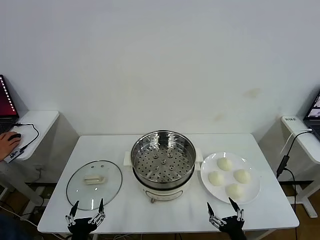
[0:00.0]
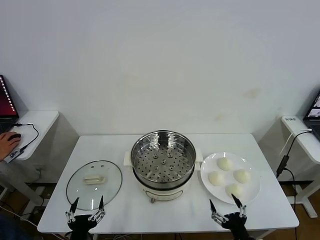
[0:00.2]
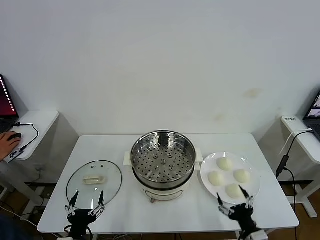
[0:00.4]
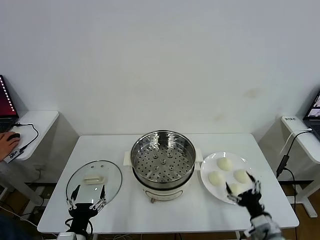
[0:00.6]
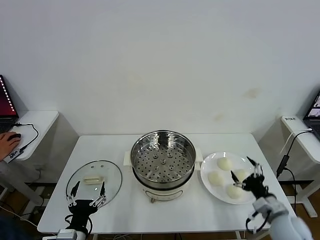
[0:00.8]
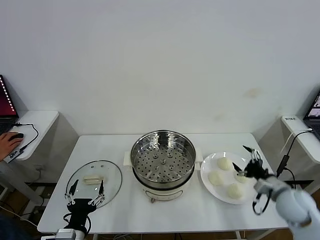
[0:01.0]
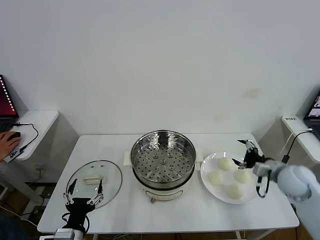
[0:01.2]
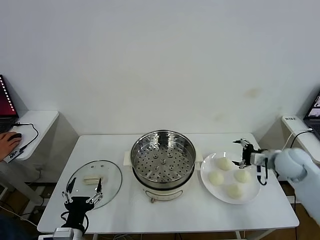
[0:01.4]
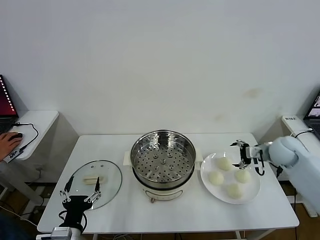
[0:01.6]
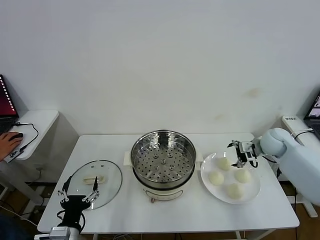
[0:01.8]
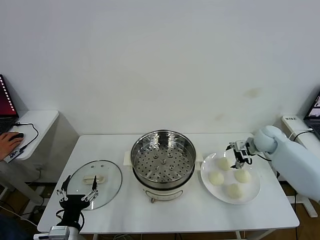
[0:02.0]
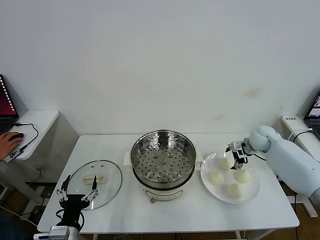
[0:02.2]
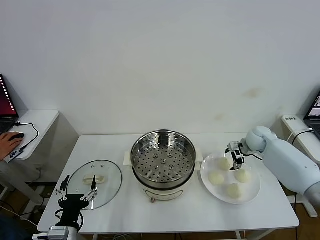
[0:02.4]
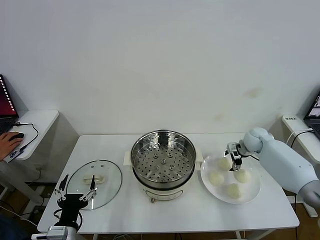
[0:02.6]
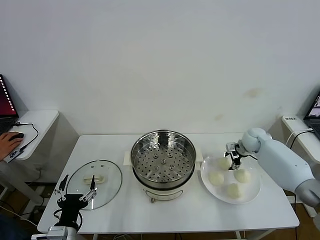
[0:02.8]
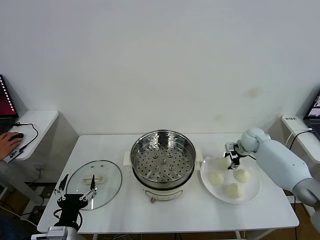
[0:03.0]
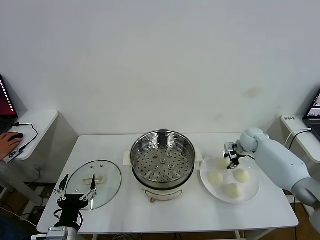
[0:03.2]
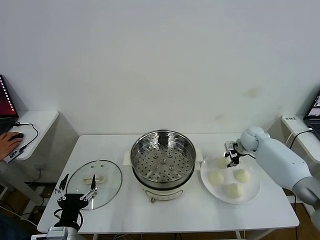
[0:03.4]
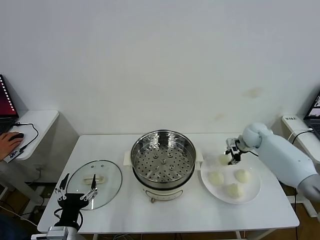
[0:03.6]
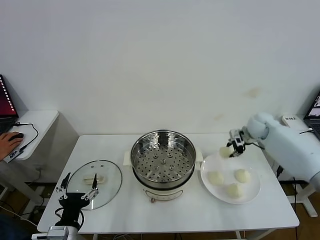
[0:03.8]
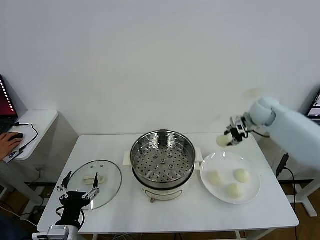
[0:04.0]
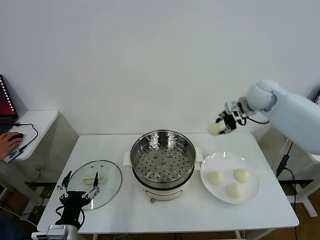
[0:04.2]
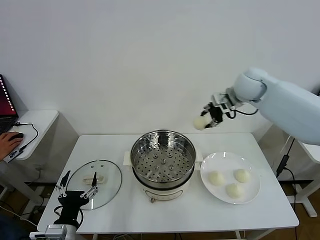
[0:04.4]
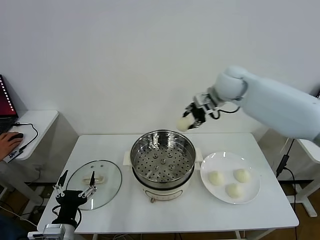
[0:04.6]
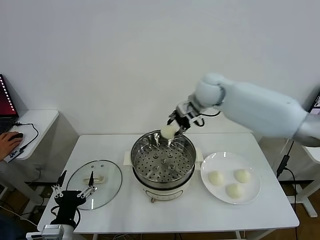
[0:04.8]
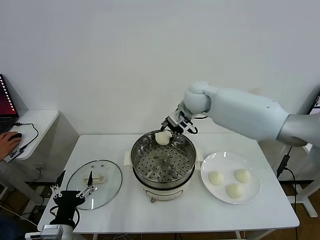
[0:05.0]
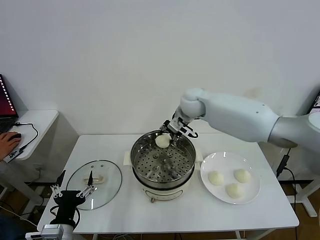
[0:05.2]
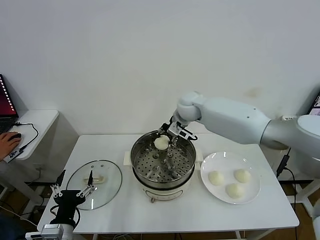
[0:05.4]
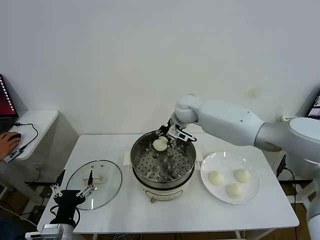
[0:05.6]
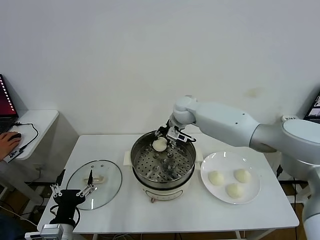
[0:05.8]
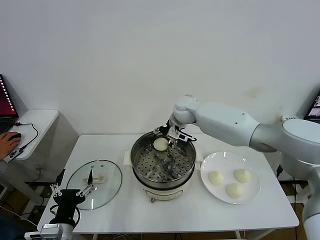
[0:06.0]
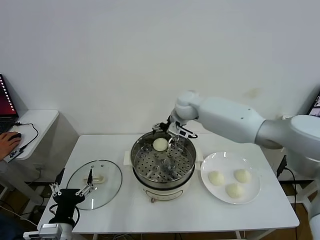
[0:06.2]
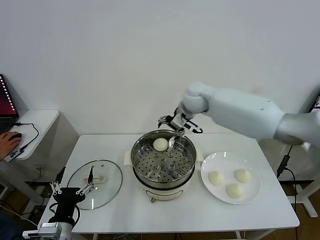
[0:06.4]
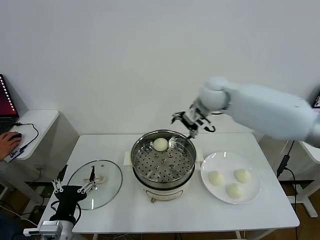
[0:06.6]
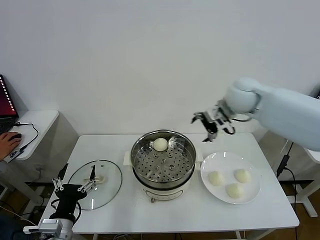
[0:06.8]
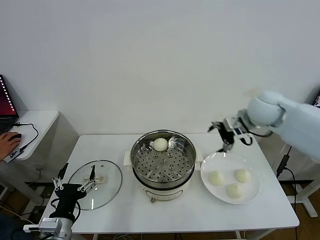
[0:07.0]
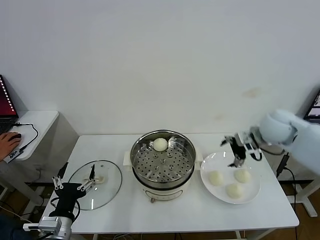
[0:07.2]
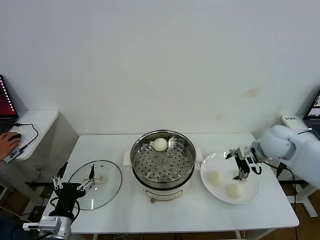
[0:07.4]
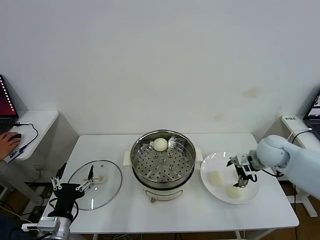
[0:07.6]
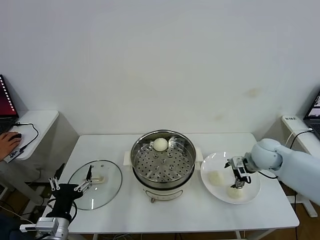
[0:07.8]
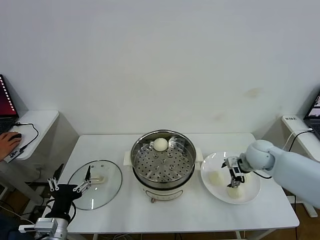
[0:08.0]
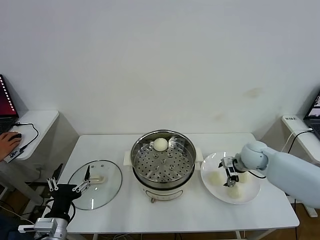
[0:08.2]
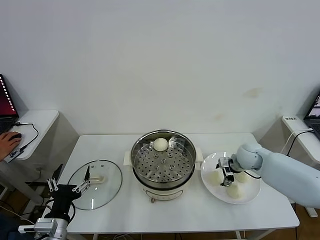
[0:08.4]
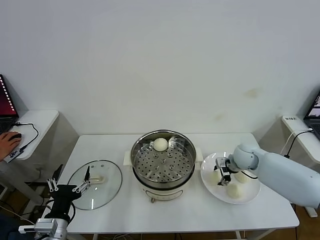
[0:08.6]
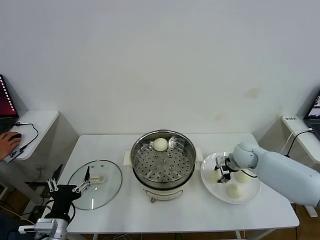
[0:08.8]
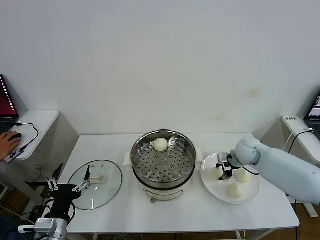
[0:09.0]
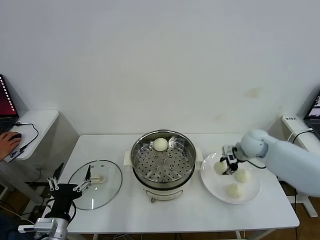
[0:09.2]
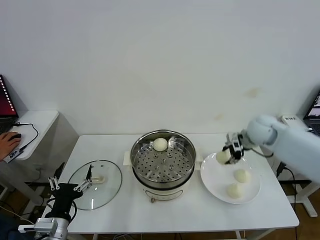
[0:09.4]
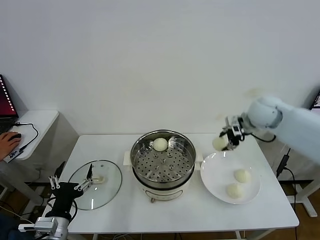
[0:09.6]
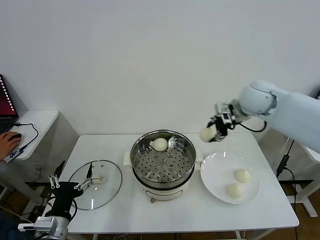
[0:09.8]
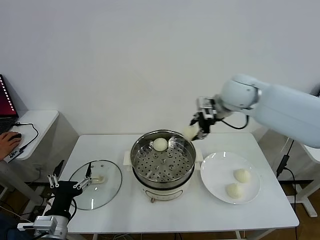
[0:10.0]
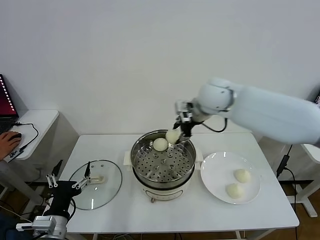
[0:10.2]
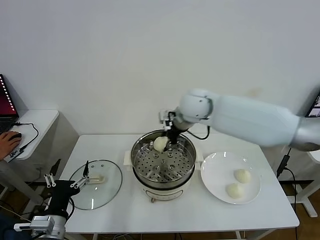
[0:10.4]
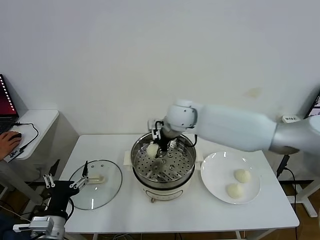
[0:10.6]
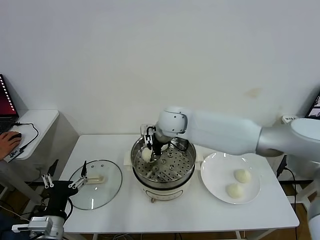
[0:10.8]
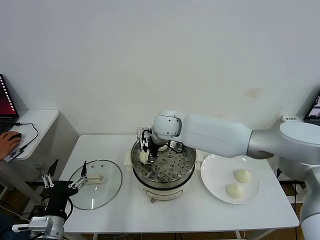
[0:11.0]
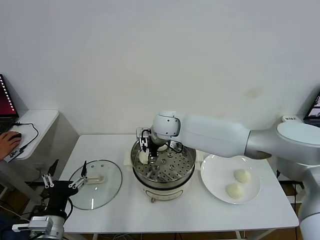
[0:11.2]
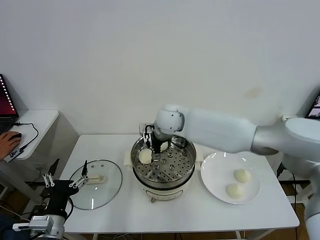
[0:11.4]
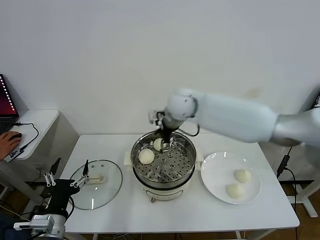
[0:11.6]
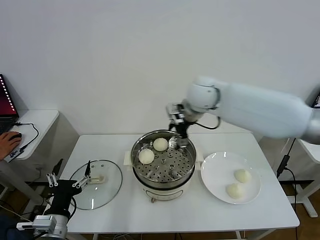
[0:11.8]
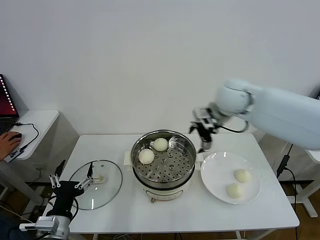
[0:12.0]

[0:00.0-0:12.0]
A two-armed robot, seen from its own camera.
Task of the whole recording: take steamed baozi put them in steamer then cover it.
Step, 0:00.0 to 0:02.8: Grasp the baozi in the plate with right gripper.
Step, 0:03.0 to 0:05.8: Place the baozi on the steamer with right gripper.
Step, 0:06.0 to 0:08.8: Grasp the baozi in the plate with right gripper.
Step, 0:09.0 to 0:11.2: Place the baozi on the steamer with right gripper.
0:01.6 to 0:03.0: The right gripper moves forward and downward, roughly 10 cm, and closes up.
0:03.0 to 0:04.4: The right gripper heads upward and to the left, covering about 30 cm.
0:04.4 to 0:06.0: The right gripper is displaced to the left and downward by approximately 20 cm, and opens.
0:06.0 to 0:07.6: The right gripper heads to the right and backward, covering some 30 cm.
0:07.6 to 0:09.0: The right gripper shifts some 5 cm forward, and closes up.
0:09.0 to 0:10.4: The right gripper travels to the left and upward by some 30 cm.
0:10.4 to 0:12.0: The right gripper heads to the right, covering some 15 cm, and opens its fingers.

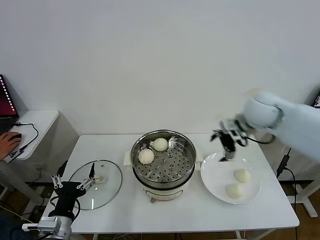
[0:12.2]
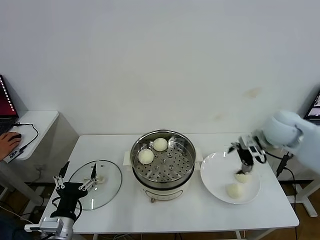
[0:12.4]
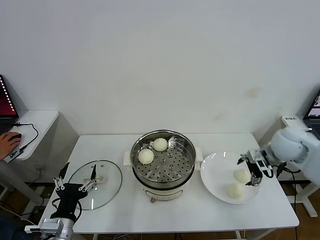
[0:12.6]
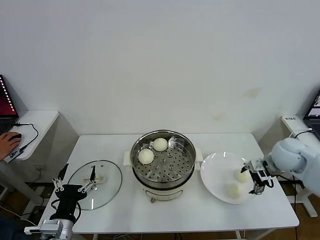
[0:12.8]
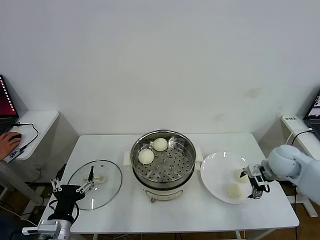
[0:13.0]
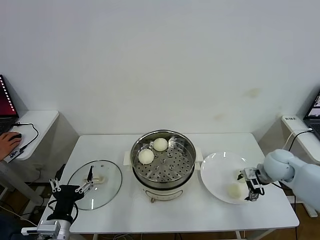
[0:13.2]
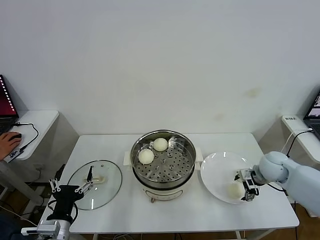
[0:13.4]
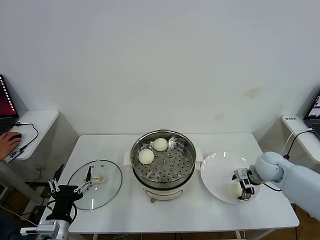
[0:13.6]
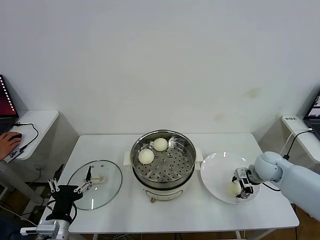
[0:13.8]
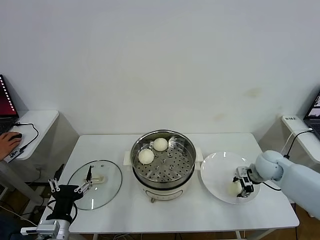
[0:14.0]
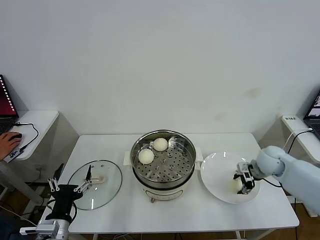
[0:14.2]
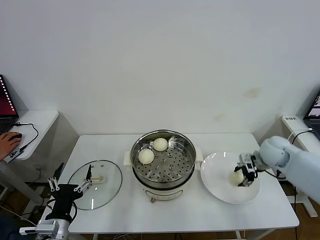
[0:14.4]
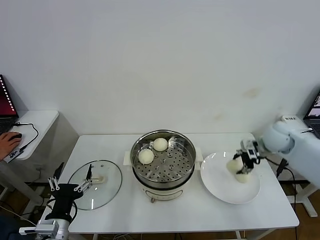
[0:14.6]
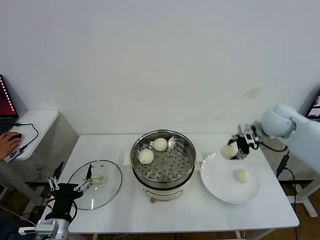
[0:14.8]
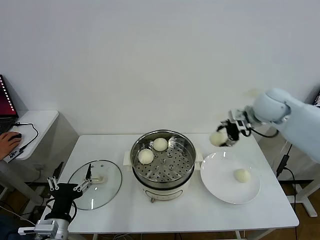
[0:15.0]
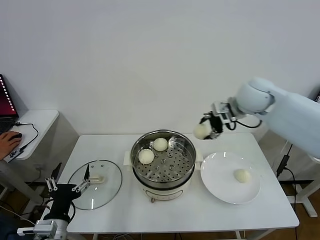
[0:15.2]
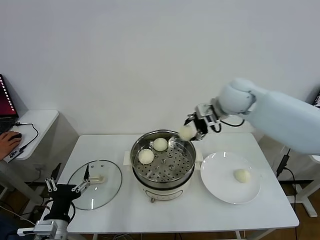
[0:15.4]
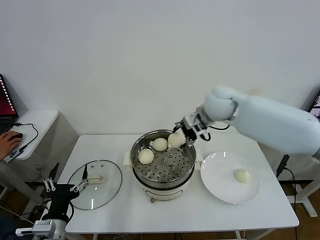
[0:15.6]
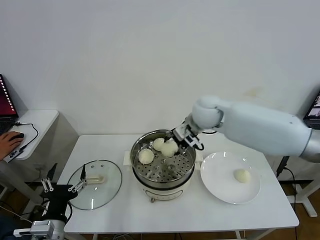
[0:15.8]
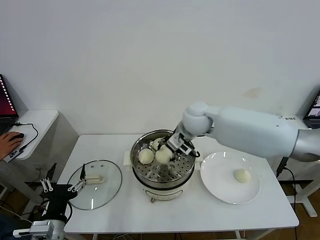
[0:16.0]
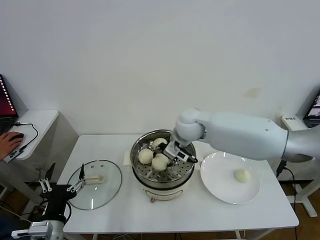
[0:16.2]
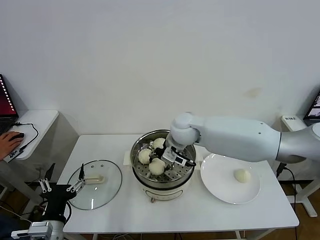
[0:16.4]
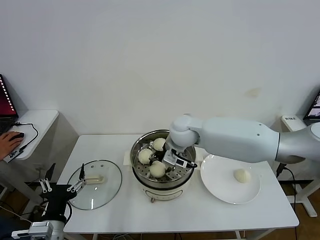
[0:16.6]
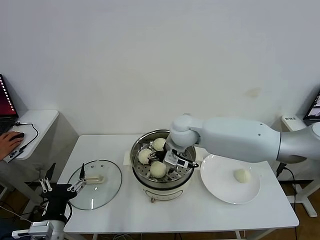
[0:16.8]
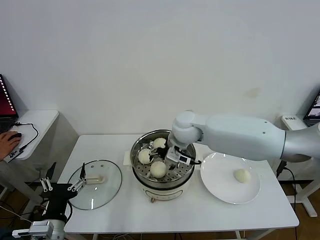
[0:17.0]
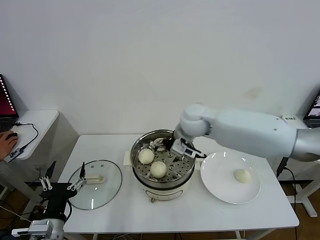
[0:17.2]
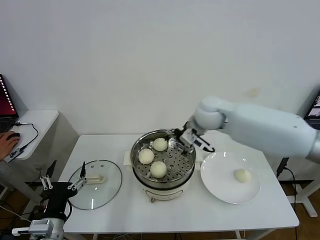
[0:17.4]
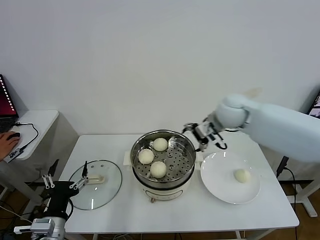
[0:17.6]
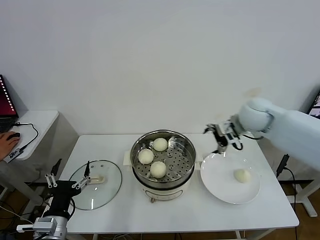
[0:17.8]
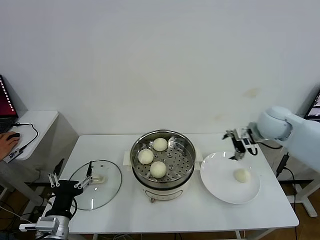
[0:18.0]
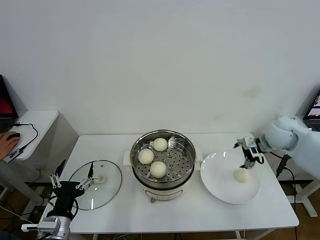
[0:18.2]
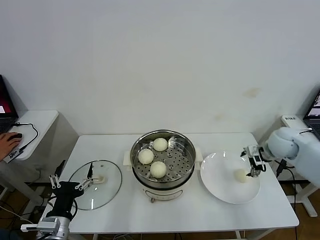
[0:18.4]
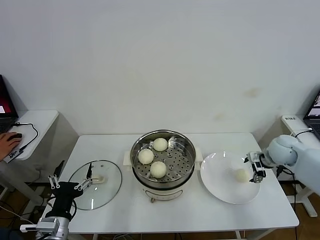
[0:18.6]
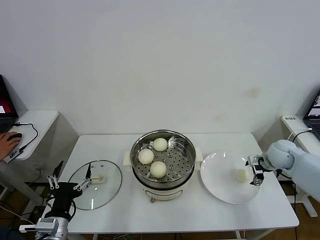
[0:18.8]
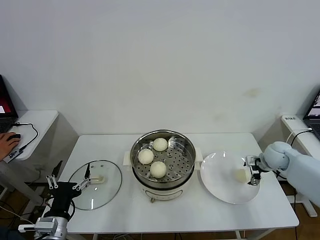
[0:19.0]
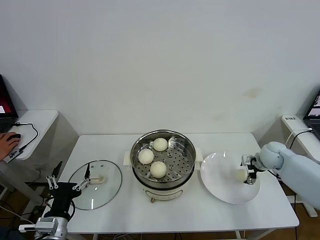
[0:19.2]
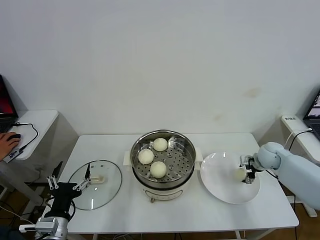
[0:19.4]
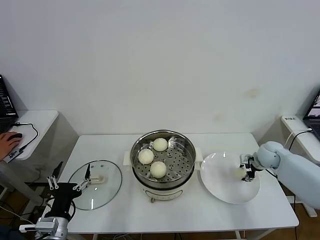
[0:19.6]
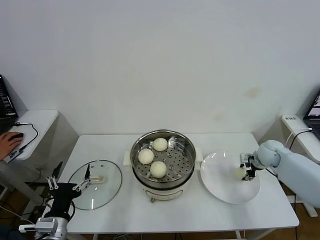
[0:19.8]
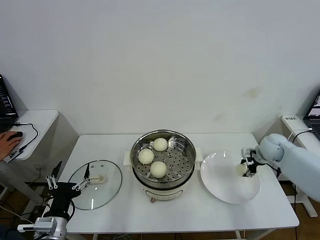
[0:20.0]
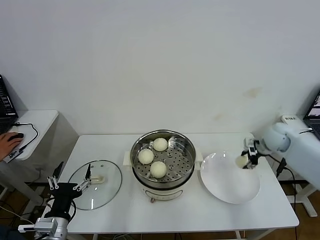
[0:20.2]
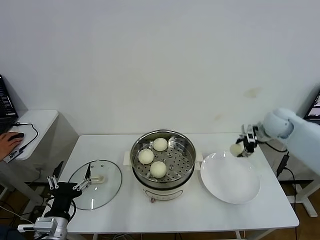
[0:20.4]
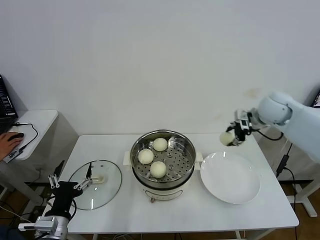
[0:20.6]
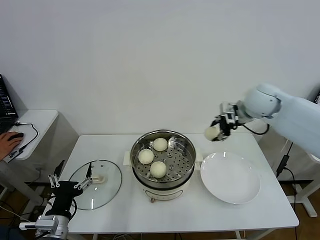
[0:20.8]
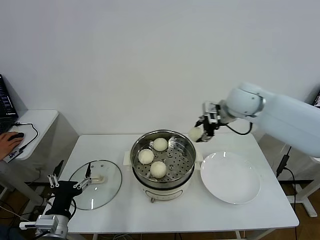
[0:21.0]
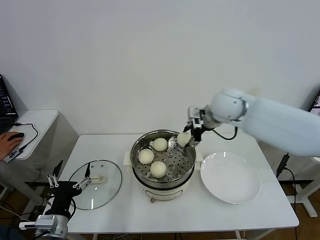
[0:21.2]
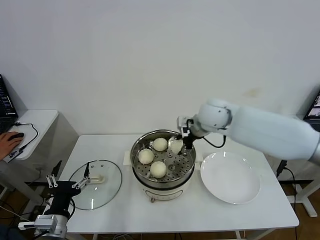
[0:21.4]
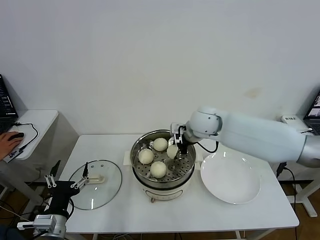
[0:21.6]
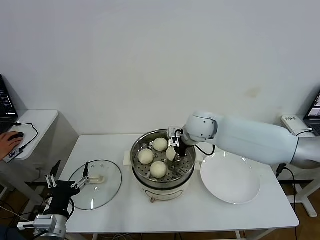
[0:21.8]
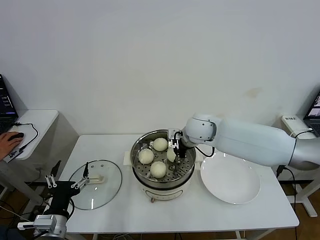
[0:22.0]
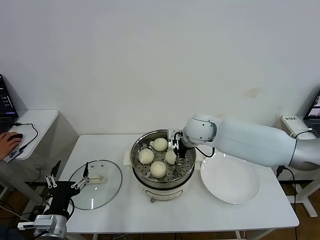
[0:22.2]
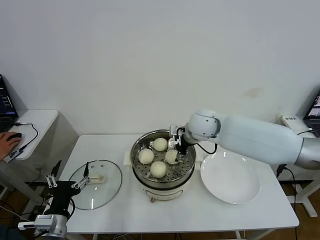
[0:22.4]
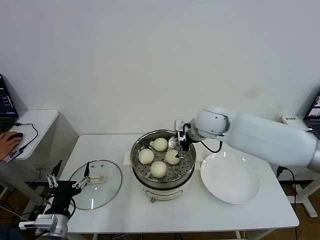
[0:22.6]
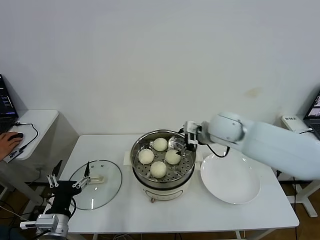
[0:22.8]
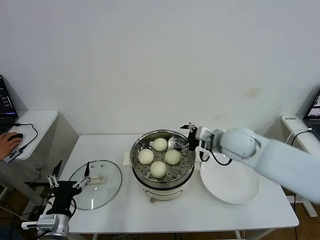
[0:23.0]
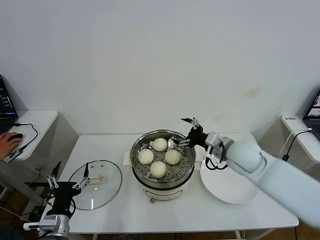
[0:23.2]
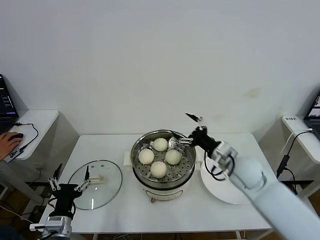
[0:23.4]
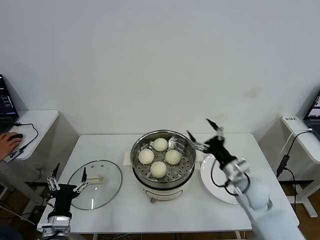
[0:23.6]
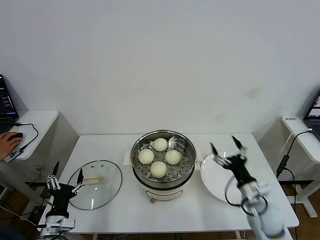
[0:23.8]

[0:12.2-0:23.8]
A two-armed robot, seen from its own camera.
Task of the whole recording: take steamed baozi put them in steamer then cover it.
Step, 0:12.2 to 0:14.0: Grasp the baozi in the plate with right gripper.
Step, 0:14.2 to 0:16.6: Place the baozi on the steamer with right gripper.
Step, 0:16.8 to 0:19.8: Grasp the baozi in the plate with right gripper.
Step, 0:20.0 to 0:22.2: Place the baozi on the steamer with right gripper.
0:12.2 to 0:13.6: The right gripper is displaced downward by roughly 20 cm.
0:13.6 to 0:15.0: The right gripper shifts about 25 cm upward, and closes.
0:15.0 to 0:16.6: The right gripper moves to the left and downward, approximately 25 cm.
0:16.6 to 0:18.0: The right gripper goes about 30 cm to the right, and opens.
0:18.0 to 0:19.4: The right gripper is displaced downward by roughly 15 cm.
0:19.4 to 0:21.0: The right gripper moves upward and to the left, approximately 30 cm, and closes.
0:21.0 to 0:22.4: The right gripper heads to the left and downward, covering about 15 cm, and opens its fingers.
0:22.4 to 0:23.8: The left gripper heads downward, covering some 5 cm. Meanwhile the right gripper travels backward, downward and to the right by approximately 35 cm.
